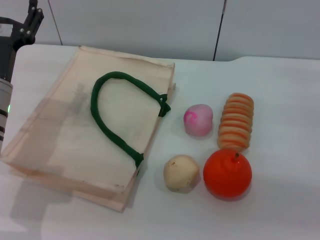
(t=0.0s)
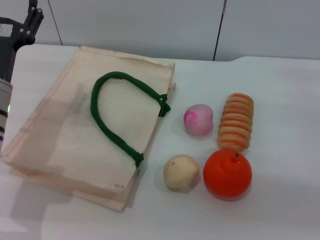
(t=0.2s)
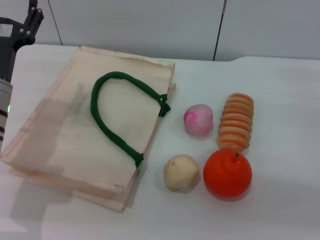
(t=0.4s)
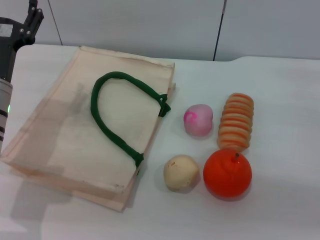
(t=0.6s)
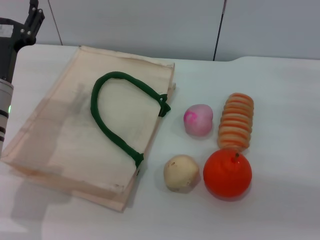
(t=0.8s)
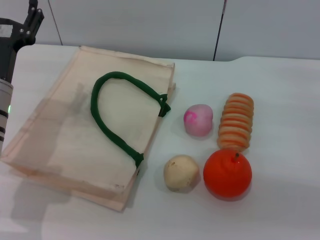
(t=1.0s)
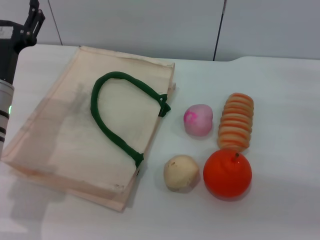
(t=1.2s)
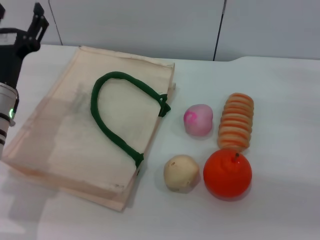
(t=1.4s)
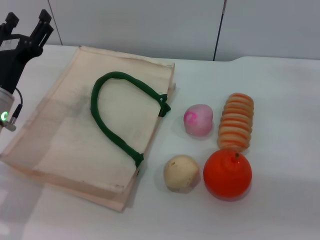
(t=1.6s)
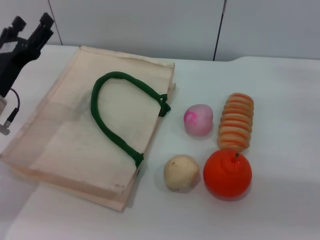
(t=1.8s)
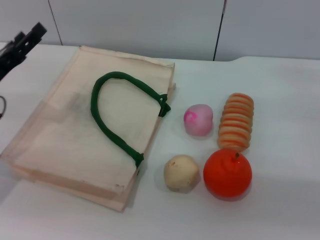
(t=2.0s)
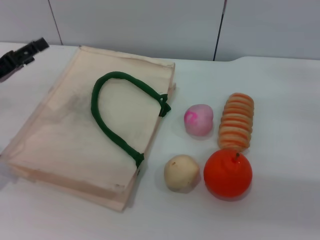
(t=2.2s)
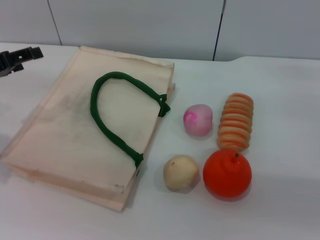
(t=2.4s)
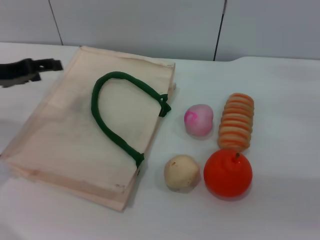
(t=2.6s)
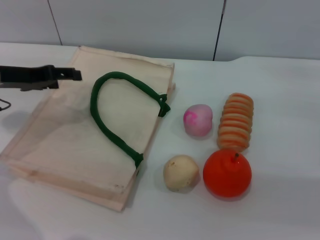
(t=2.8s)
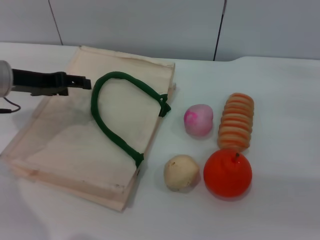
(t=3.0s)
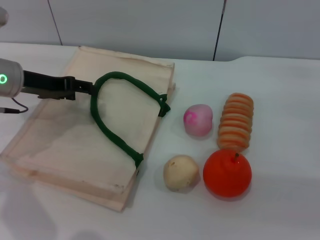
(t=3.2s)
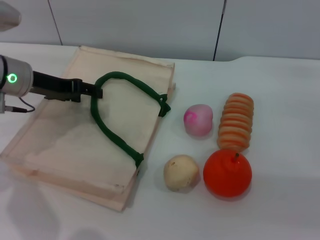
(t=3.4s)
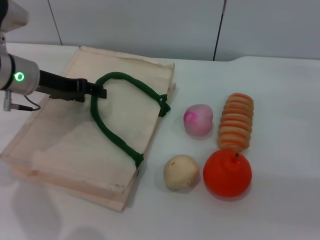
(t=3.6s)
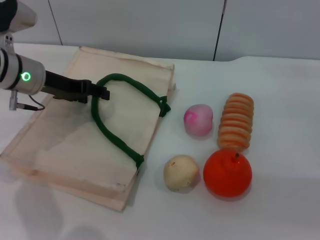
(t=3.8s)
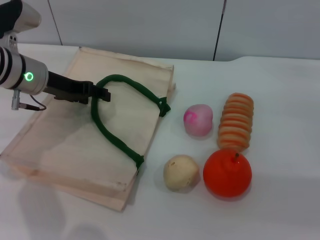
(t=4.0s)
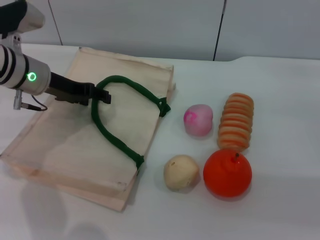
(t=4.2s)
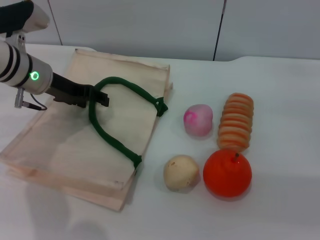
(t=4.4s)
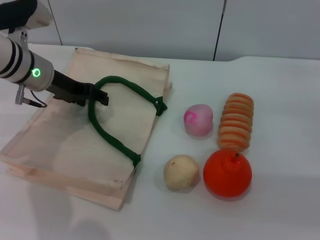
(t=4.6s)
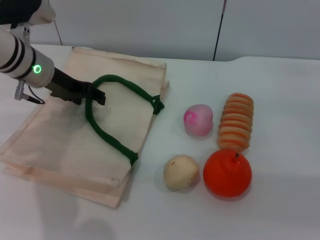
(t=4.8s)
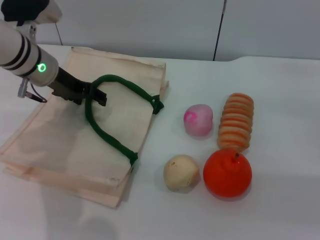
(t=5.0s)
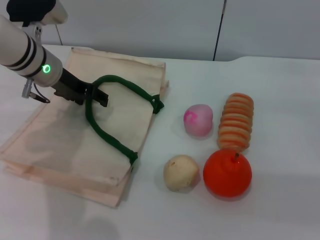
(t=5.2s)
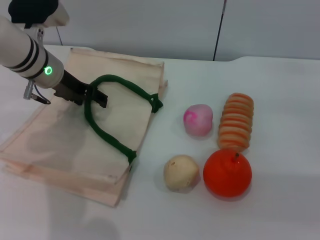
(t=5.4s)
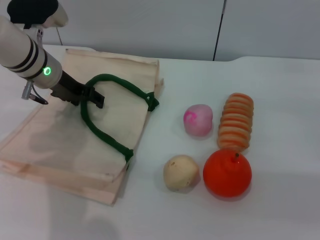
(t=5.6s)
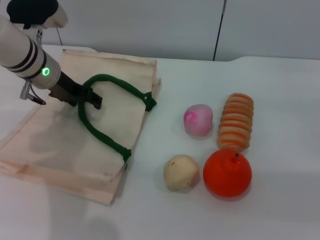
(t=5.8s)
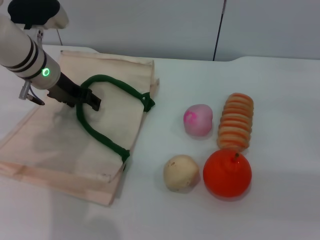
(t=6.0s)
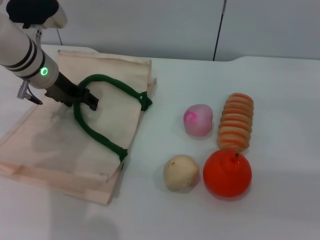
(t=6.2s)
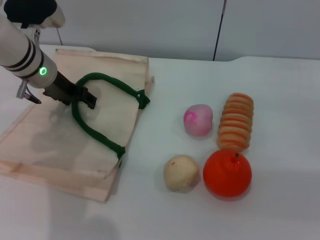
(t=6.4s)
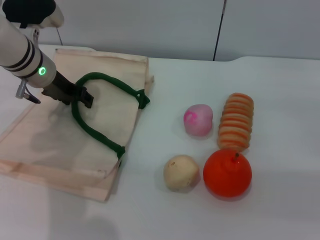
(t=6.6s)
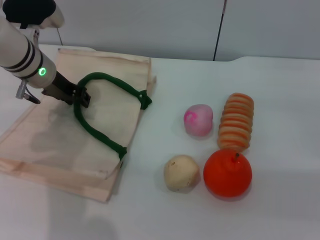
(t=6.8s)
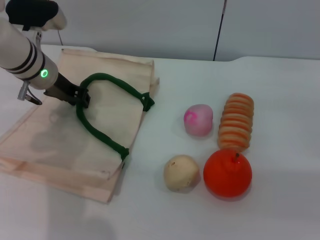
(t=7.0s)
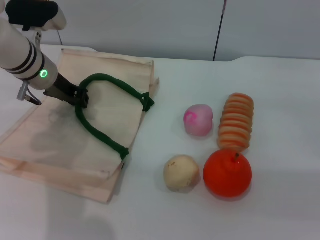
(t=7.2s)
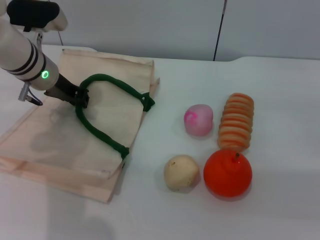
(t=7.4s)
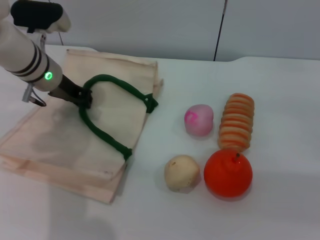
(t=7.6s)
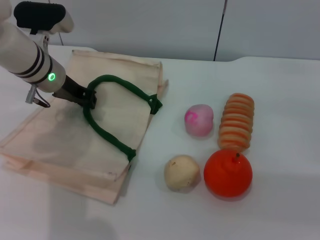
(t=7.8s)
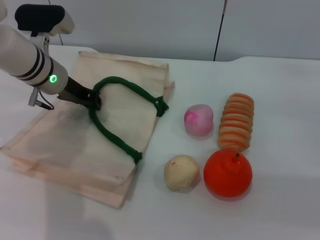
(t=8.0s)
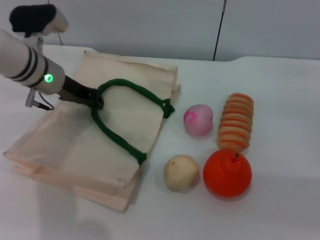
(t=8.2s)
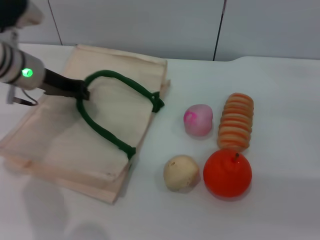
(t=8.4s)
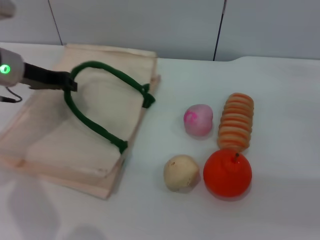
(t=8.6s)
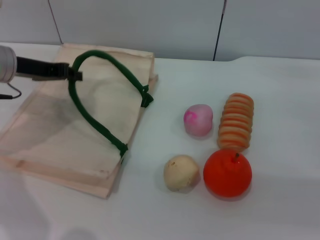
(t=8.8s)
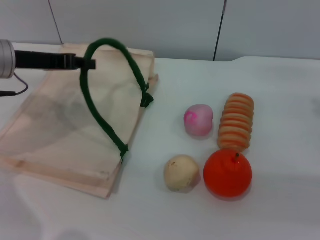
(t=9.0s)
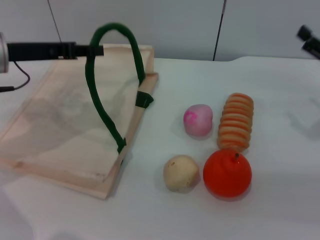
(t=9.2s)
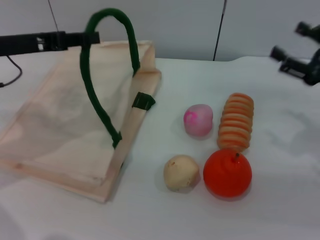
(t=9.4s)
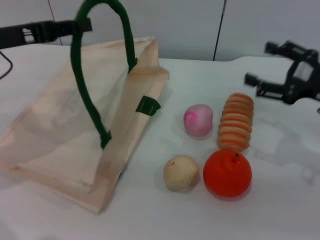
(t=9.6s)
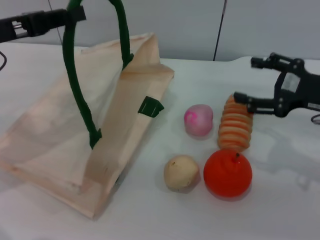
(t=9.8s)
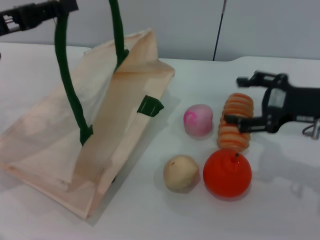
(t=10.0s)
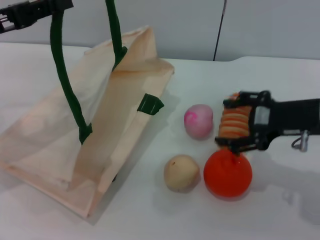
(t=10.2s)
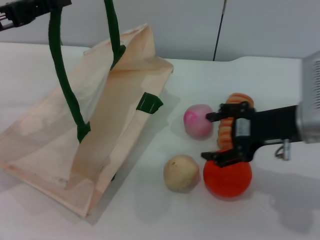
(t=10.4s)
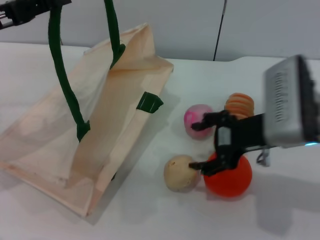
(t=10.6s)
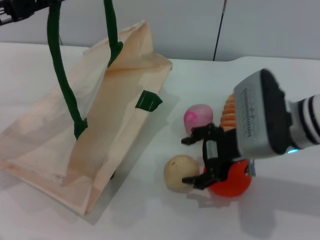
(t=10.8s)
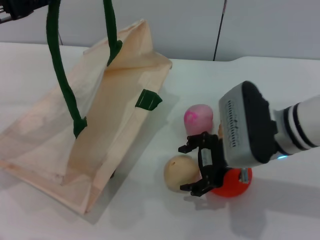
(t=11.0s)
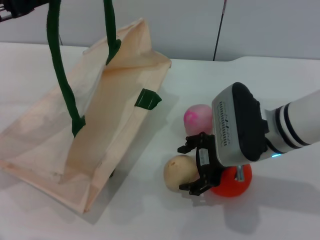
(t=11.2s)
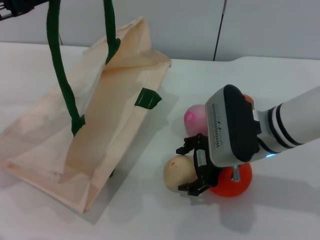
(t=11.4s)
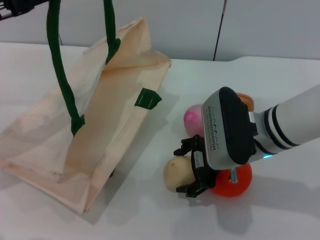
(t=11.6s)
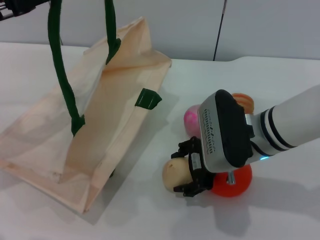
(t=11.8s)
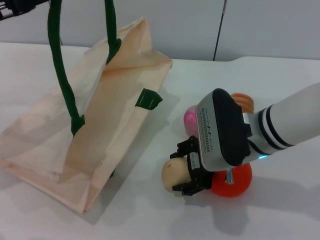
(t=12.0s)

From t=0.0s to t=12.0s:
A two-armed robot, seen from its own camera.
Task of the whole recording: pick up the egg yolk pastry from the table and place it in the white handbag.
Step, from t=0.0s to t=9.0s: Lift the woven bag with the left gripper to open it.
From t=1.6s to t=3.0s: The left gripper moves upward and forward, roughly 10 cm, and moves about 10 cm to the left and comes back.
From t=3.0s to t=4.4s: The left gripper shifts by some 5 cm.
From t=4.4s to t=6.0s: The grippers stay close to where they were, moving slightly.
From t=6.0s to t=7.6s: The left gripper closes.
From t=7.6s to t=9.0s: The left gripper travels to the left and backward by approximately 10 cm.
From t=9.0s to t=10.4s: The left gripper is displaced backward by approximately 5 cm, while the right gripper travels to the left and upward by approximately 15 cm.
From t=10.4s to t=12.0s: The right gripper travels to the left by approximately 10 cm.

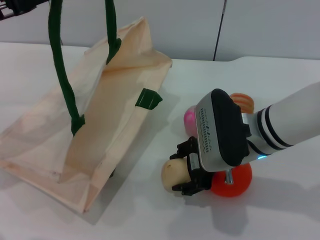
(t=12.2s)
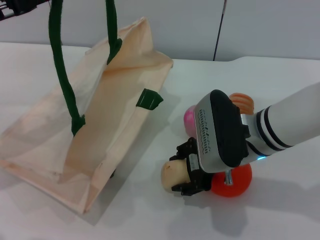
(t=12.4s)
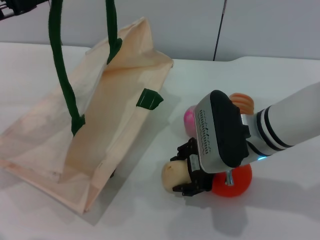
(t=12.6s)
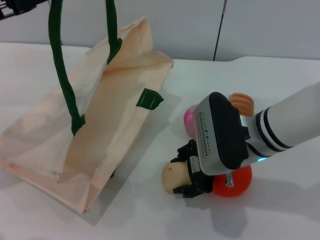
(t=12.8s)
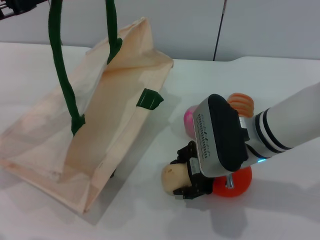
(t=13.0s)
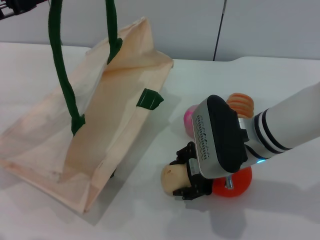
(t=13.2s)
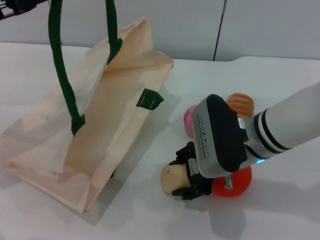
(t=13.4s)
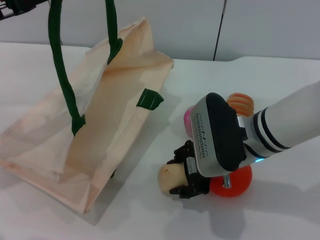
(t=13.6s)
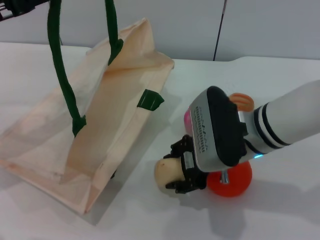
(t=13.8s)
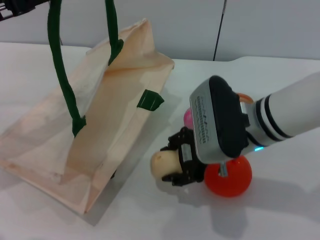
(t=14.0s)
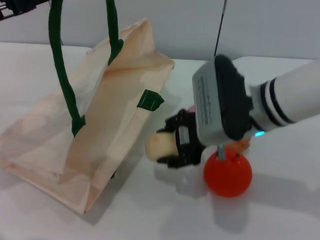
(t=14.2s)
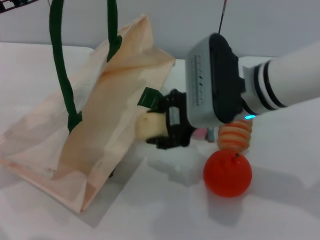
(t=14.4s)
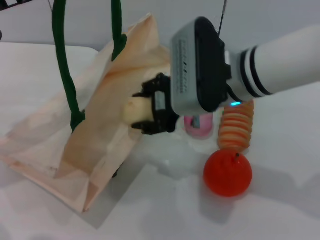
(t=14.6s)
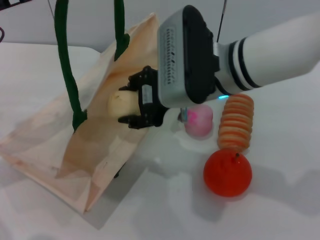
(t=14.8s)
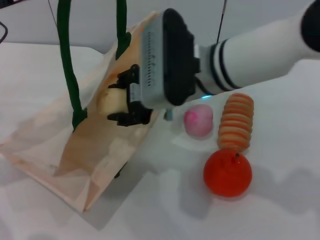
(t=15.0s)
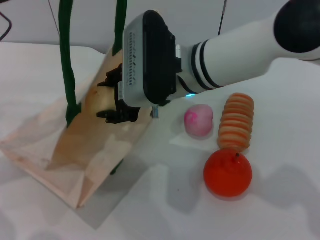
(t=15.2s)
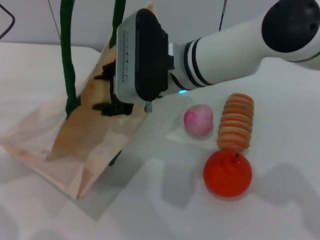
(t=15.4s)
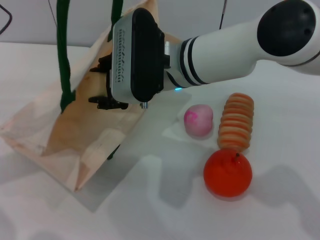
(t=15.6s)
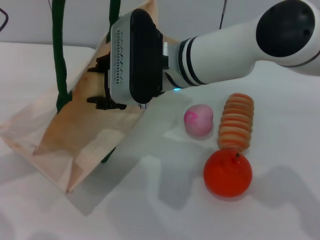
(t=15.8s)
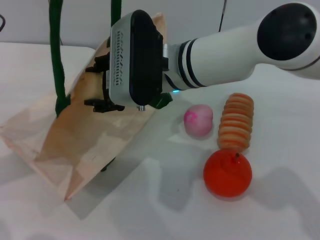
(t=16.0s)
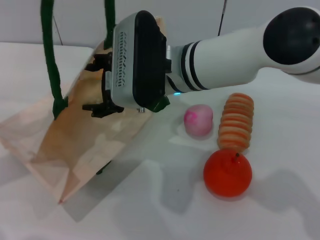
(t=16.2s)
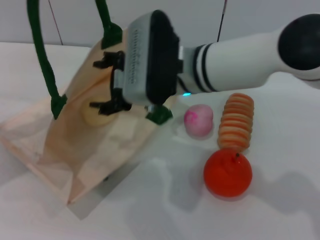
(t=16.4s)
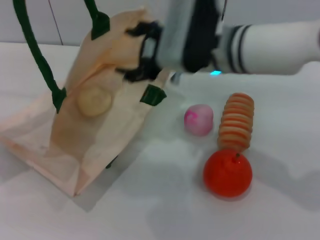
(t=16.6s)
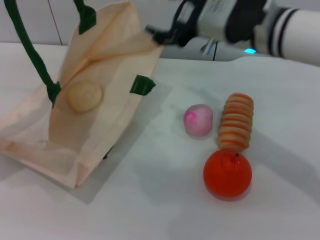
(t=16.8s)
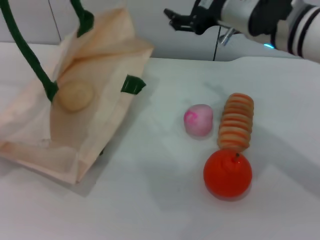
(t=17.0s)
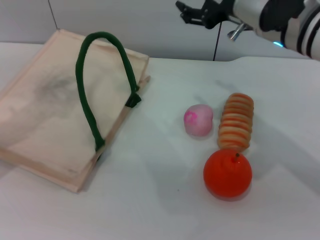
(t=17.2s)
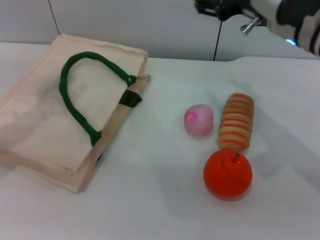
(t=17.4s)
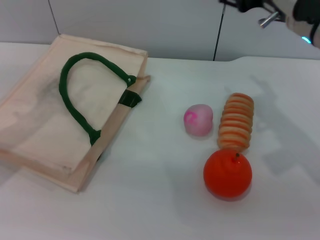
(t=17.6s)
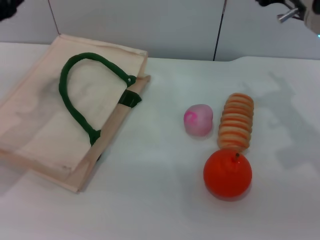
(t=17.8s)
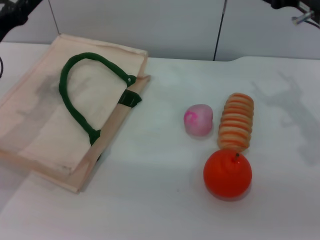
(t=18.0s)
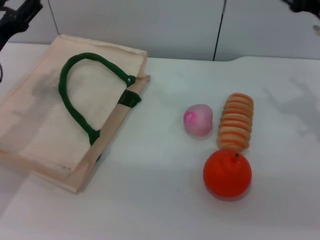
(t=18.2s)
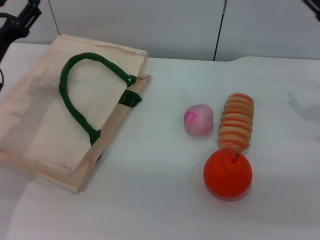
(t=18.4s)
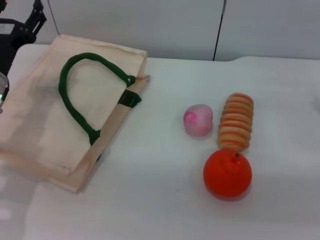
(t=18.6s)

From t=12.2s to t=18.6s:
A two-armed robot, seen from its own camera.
Task of the whole recording: pick up the egg yolk pastry from the table and place it in the white handbag.
Step, from t=12.2s to t=14.2s: Pick up the egg yolk pastry with the right gripper.
Step, from t=14.4s to t=16.8s: Place the egg yolk pastry into the woven bag with the right gripper.
Step, from t=17.0s to t=17.4s: Lower the woven bag with the left gripper to close it.
From t=12.2s to t=13.8s: The right gripper closes its fingers.
From t=13.8s to t=15.4s: The right gripper is displaced to the left, upward and forward by about 10 cm.
From t=15.4s to t=17.0s: The left gripper shifts some 5 cm to the left; the right gripper heads to the right, covering some 10 cm, and opens its fingers.
From t=17.0s to t=18.6s: The left gripper moves downward and to the right, approximately 15 cm, and opens, while the right gripper goes roughly 20 cm to the right and downward.
